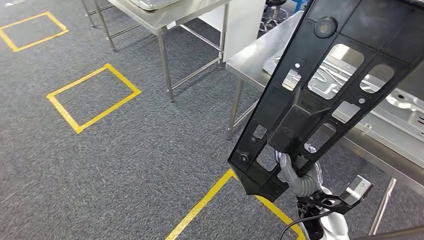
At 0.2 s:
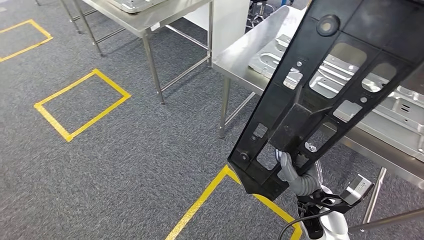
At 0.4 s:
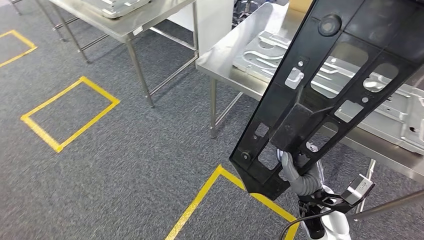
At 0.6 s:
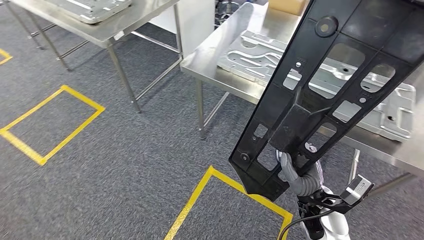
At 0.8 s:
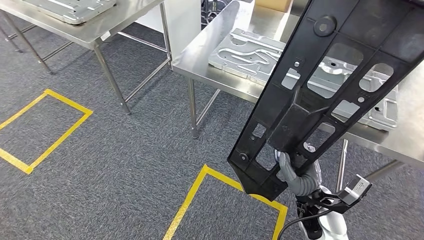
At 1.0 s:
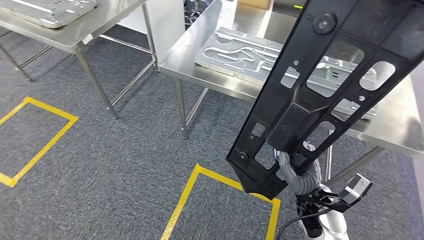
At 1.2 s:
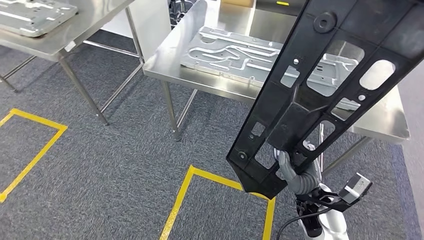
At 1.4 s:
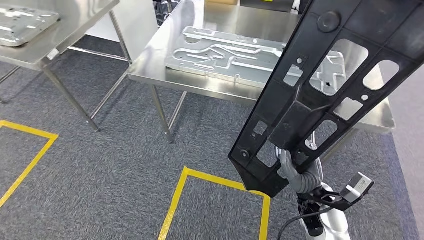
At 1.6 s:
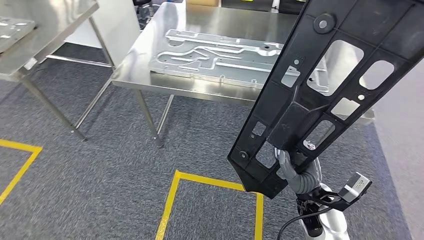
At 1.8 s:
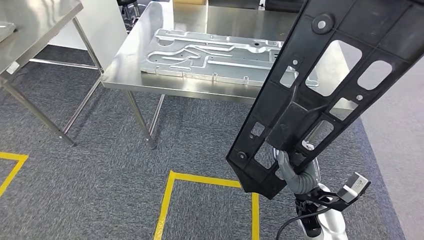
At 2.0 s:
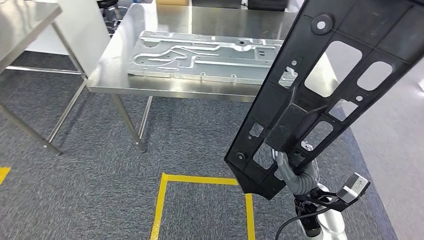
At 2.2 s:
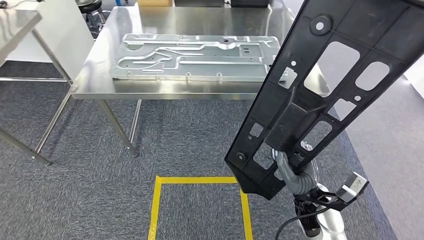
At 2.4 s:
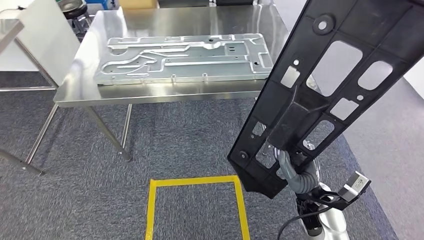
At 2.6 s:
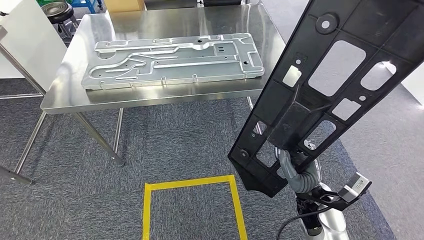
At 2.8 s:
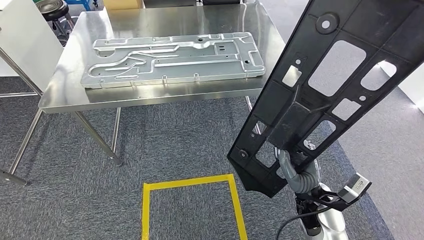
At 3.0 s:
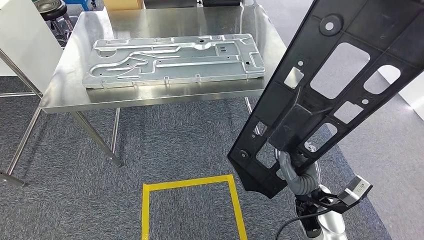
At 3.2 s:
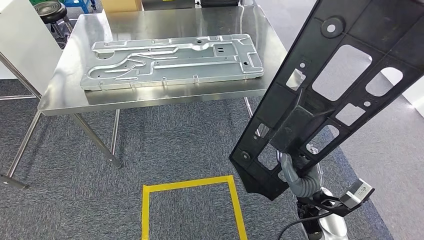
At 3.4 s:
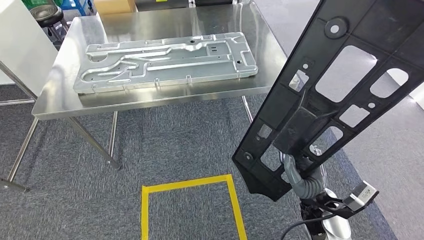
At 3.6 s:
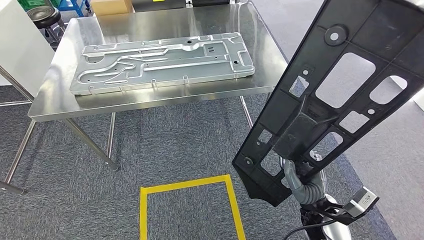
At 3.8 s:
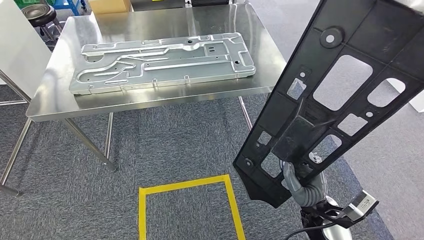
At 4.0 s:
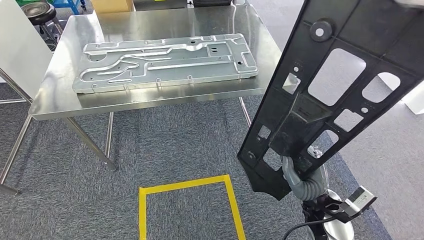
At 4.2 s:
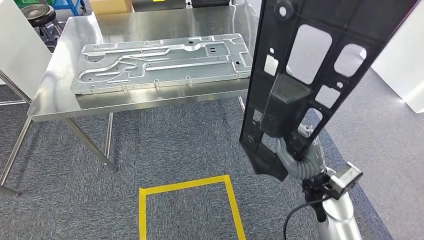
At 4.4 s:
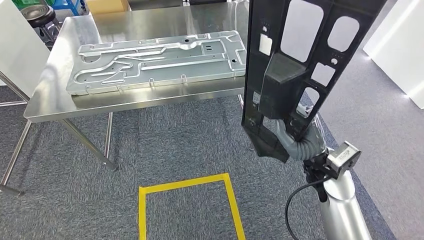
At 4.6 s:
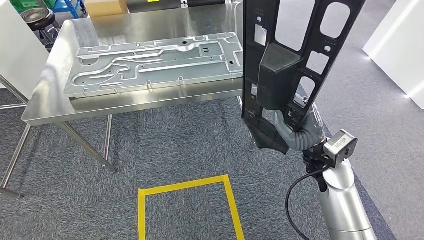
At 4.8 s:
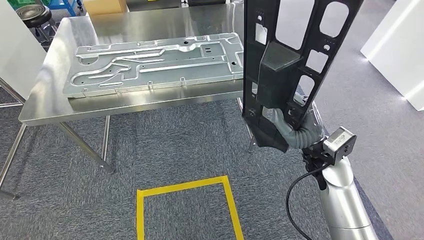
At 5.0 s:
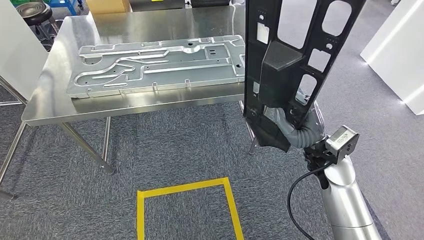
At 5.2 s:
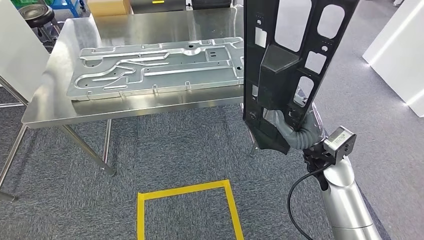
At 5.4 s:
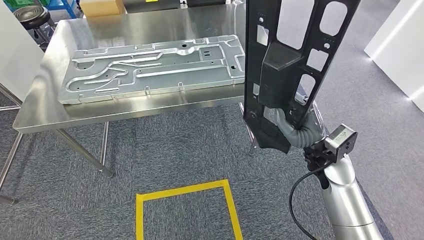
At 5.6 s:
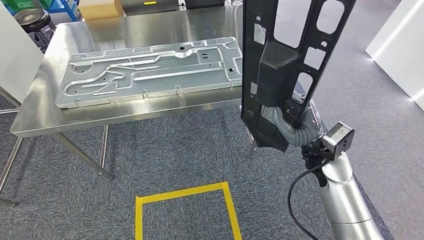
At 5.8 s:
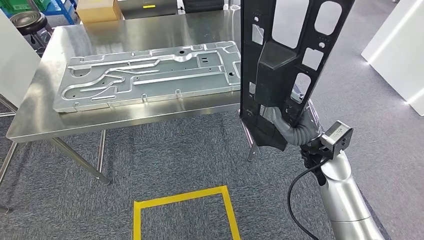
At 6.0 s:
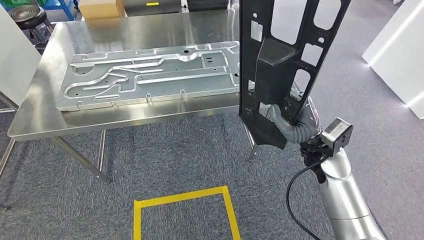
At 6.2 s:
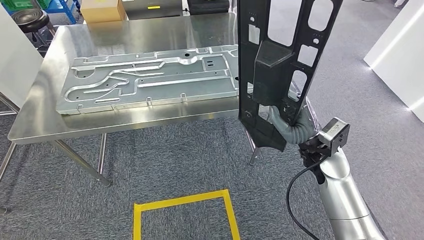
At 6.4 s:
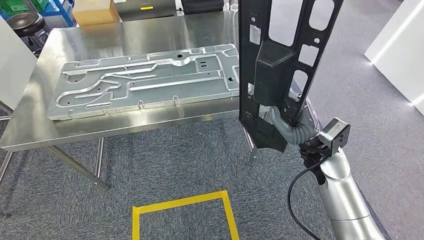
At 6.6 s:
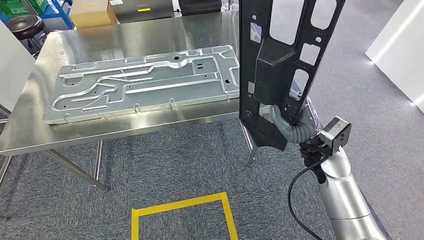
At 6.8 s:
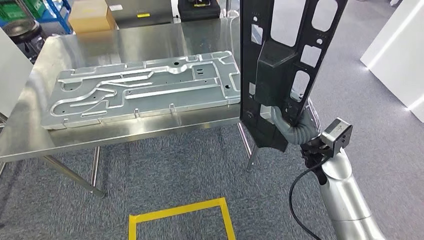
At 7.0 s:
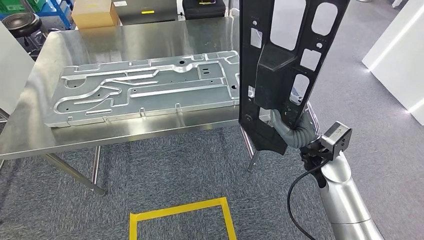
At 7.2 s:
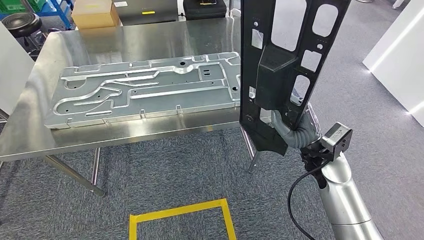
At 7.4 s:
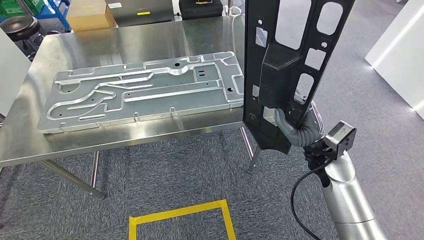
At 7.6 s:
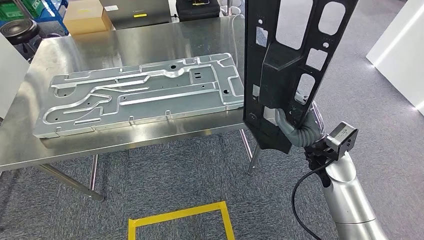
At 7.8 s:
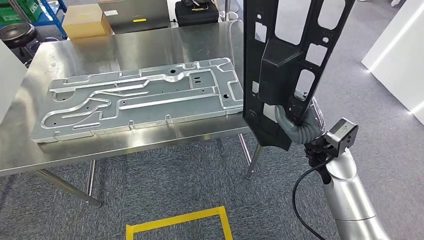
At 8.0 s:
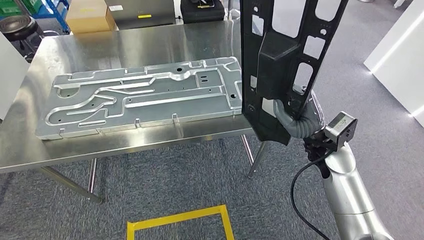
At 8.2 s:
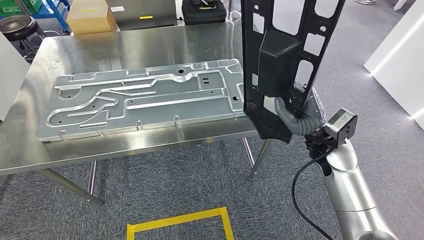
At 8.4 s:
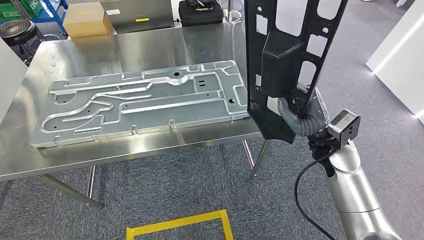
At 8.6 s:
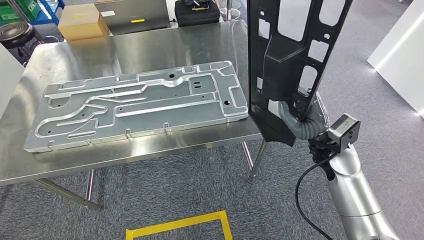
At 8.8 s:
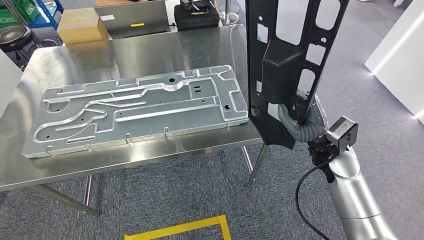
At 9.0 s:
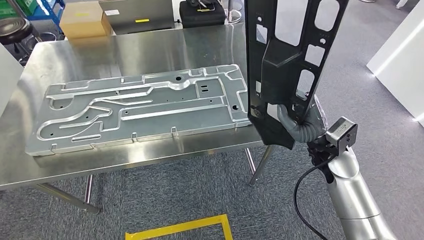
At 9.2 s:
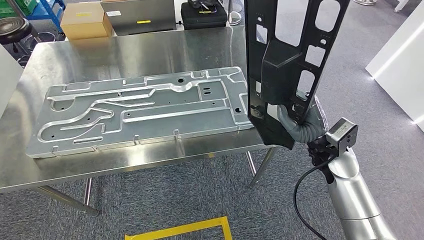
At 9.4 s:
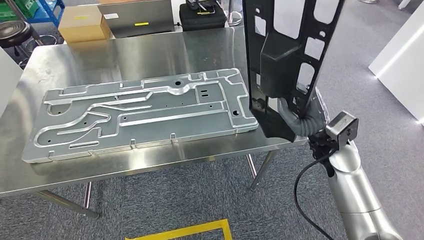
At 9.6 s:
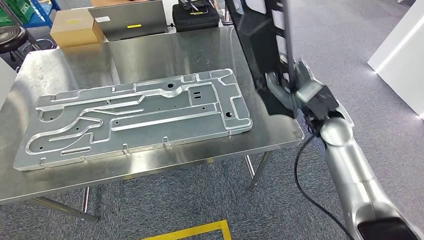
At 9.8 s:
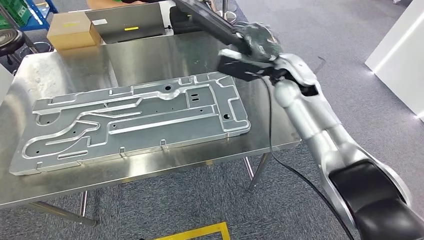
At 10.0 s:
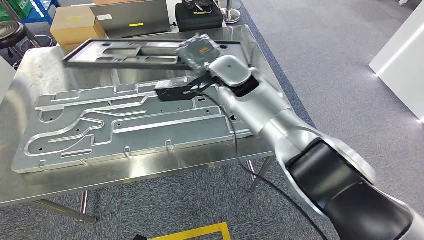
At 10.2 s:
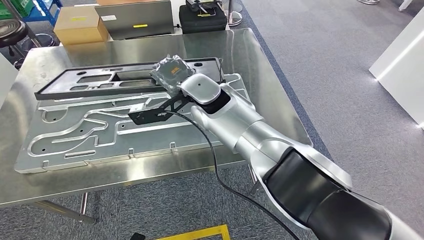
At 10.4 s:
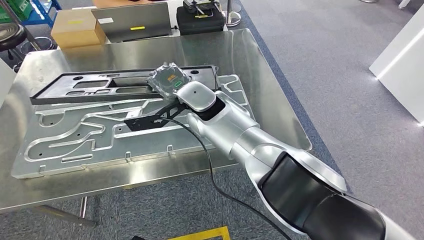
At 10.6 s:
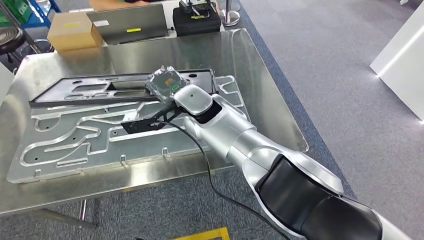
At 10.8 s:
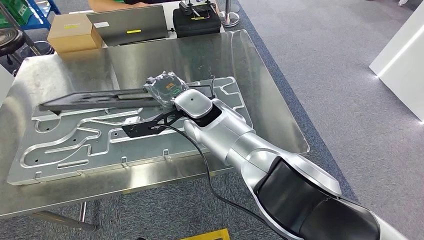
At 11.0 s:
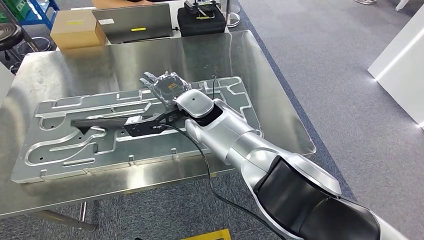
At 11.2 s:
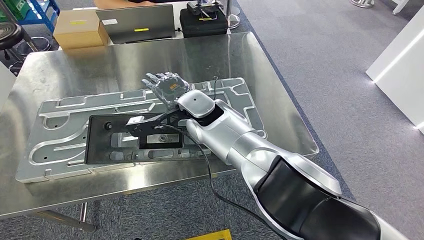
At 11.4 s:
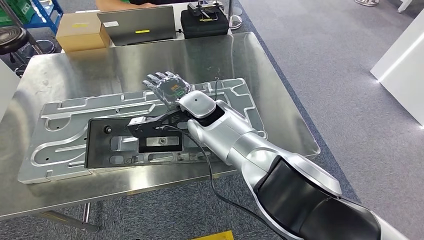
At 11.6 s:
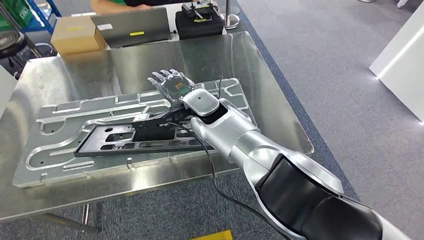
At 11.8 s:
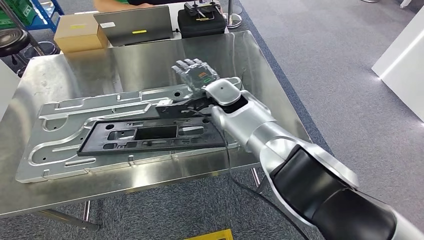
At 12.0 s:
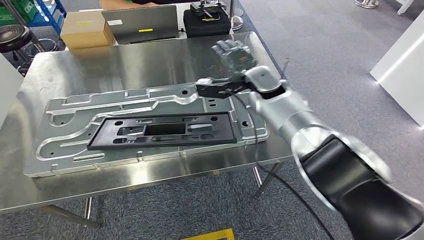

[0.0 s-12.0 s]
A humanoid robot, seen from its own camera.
Step, 0.0 to 6.4 s: Move the large parts to the workbench.

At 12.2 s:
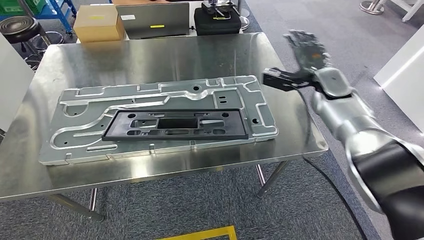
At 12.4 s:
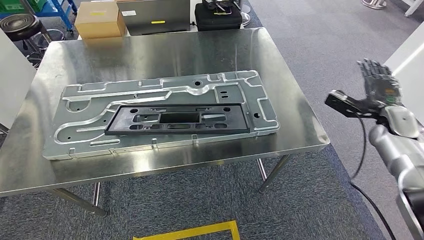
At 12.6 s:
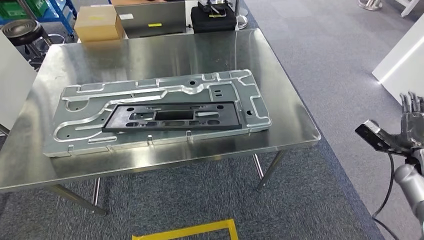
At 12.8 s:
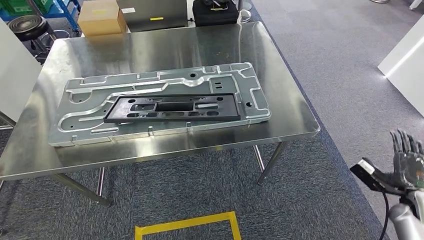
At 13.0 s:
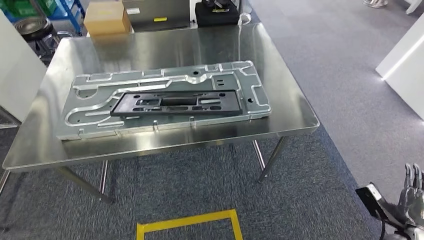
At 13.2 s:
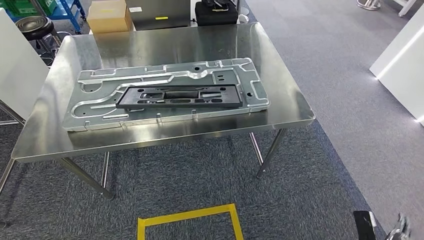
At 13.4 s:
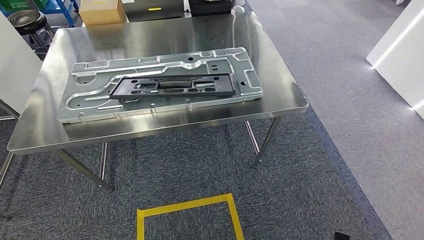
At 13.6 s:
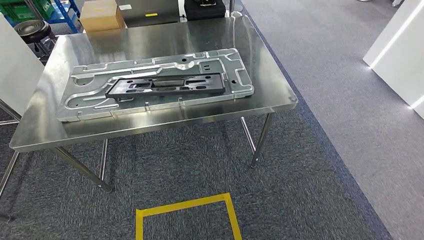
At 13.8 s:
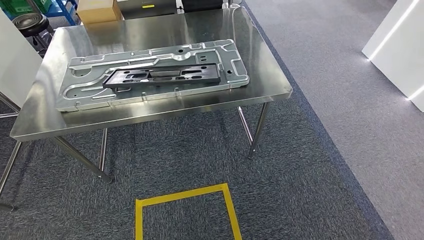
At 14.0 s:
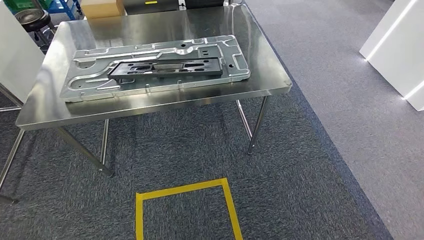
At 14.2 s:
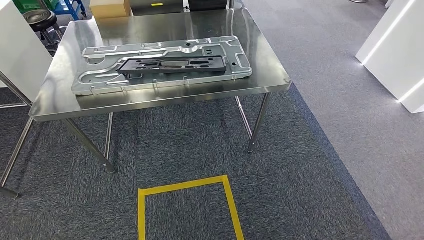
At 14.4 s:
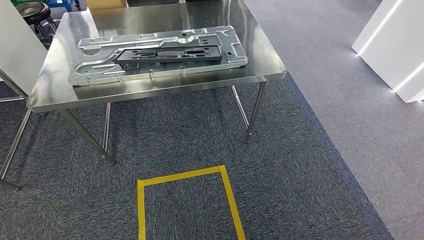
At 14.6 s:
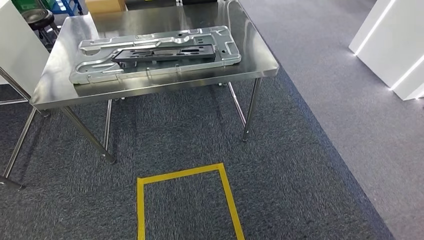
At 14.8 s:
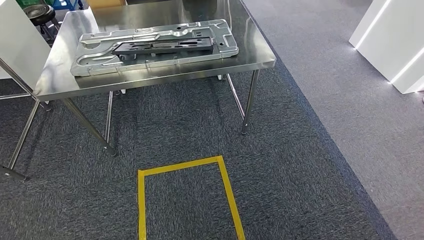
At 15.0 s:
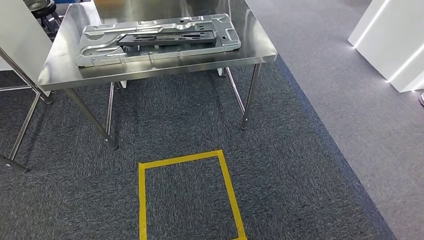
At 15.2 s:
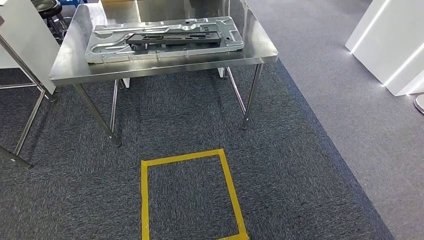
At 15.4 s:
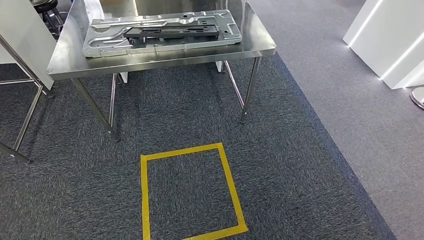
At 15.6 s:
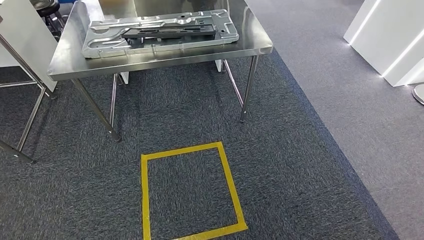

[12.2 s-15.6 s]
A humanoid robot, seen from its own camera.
Step, 14.4 to 15.6 s: Return to the initial position at the shelf.
